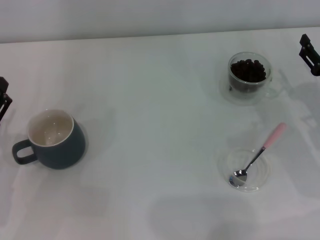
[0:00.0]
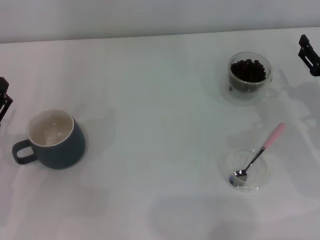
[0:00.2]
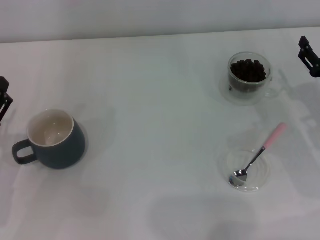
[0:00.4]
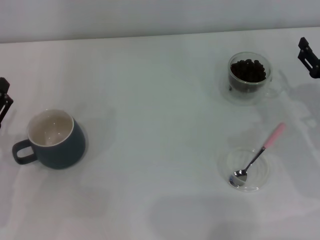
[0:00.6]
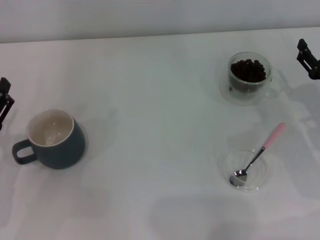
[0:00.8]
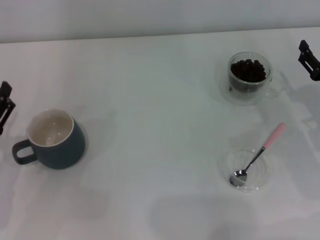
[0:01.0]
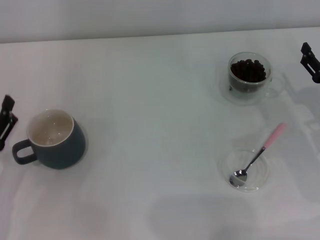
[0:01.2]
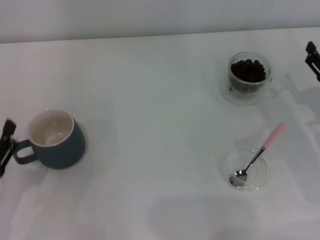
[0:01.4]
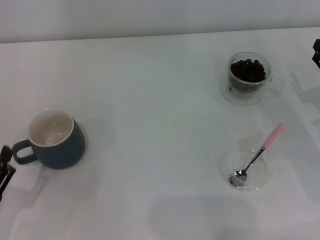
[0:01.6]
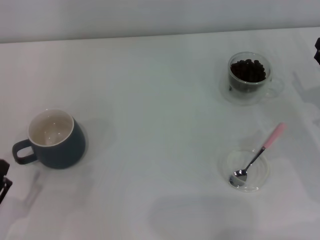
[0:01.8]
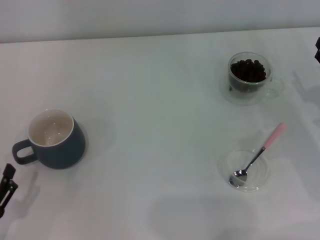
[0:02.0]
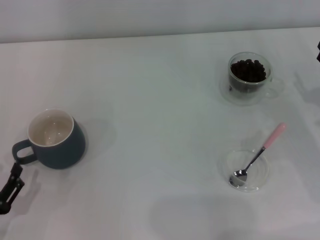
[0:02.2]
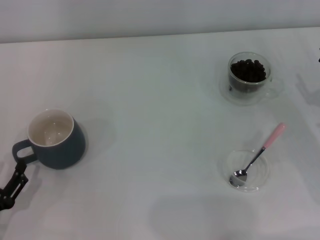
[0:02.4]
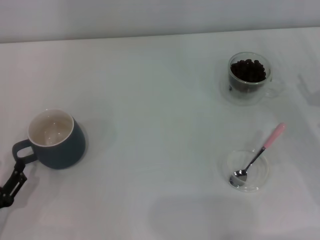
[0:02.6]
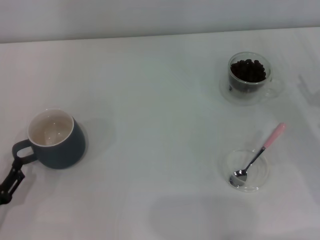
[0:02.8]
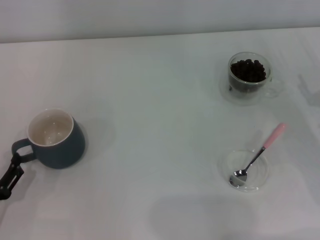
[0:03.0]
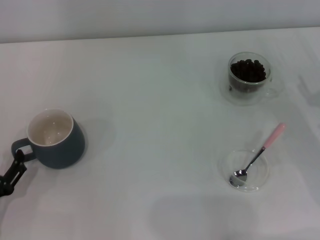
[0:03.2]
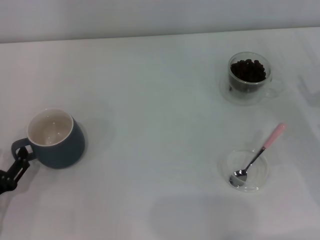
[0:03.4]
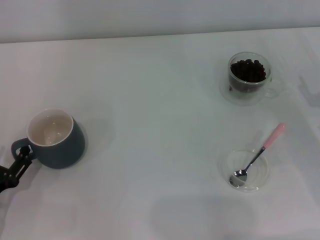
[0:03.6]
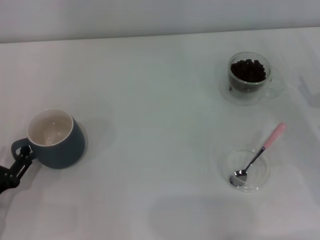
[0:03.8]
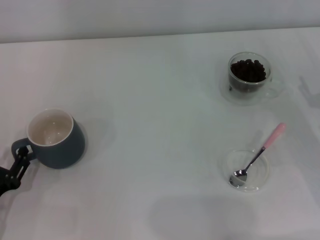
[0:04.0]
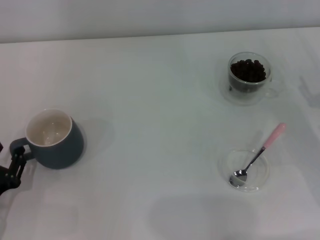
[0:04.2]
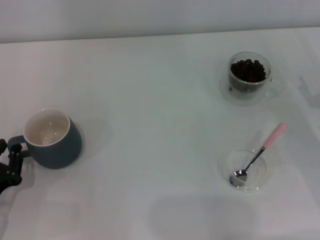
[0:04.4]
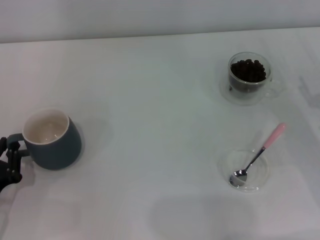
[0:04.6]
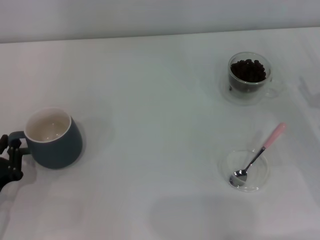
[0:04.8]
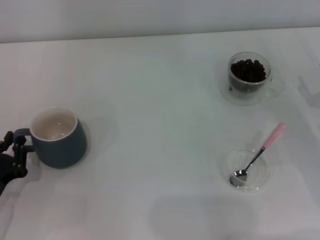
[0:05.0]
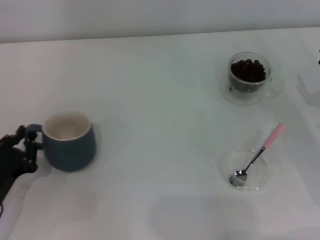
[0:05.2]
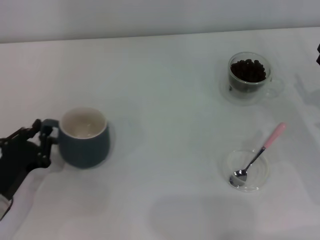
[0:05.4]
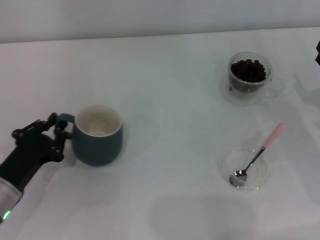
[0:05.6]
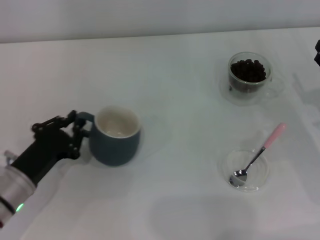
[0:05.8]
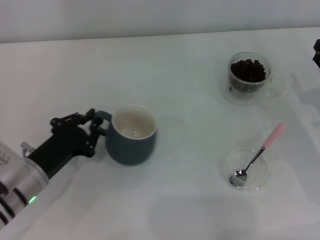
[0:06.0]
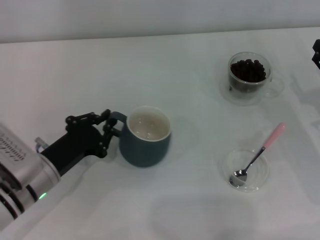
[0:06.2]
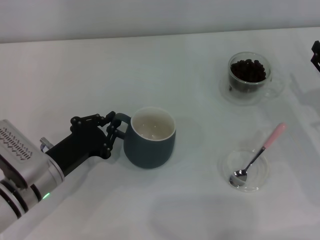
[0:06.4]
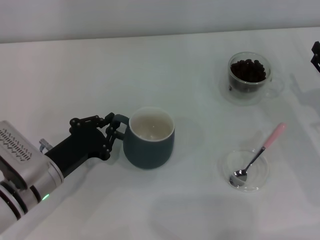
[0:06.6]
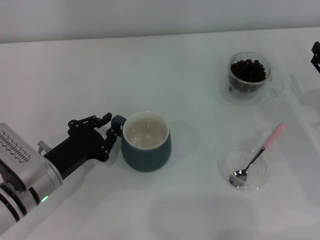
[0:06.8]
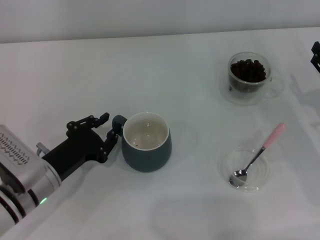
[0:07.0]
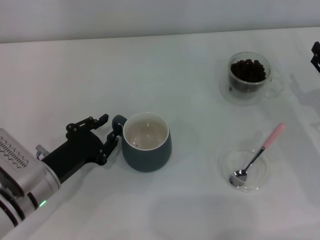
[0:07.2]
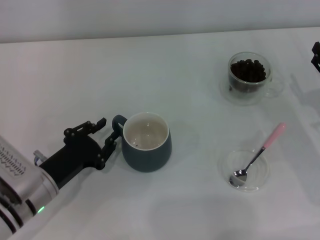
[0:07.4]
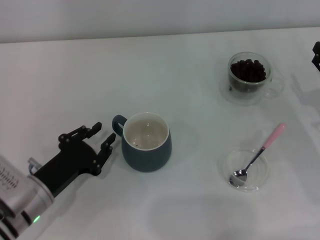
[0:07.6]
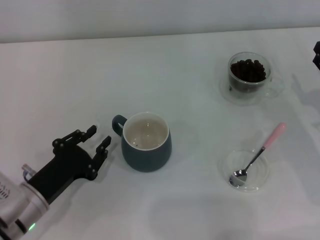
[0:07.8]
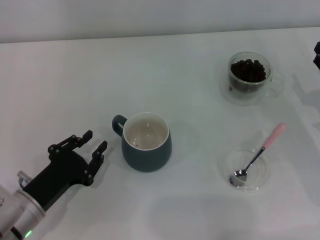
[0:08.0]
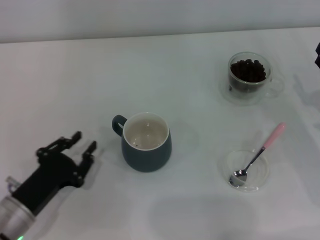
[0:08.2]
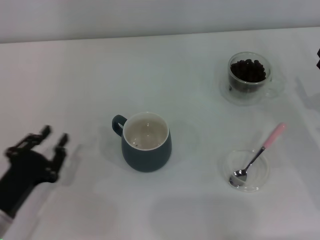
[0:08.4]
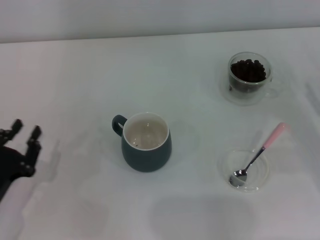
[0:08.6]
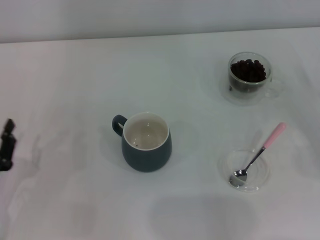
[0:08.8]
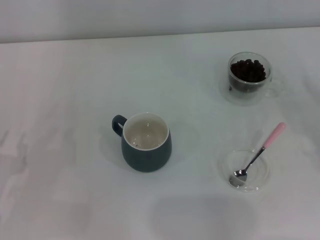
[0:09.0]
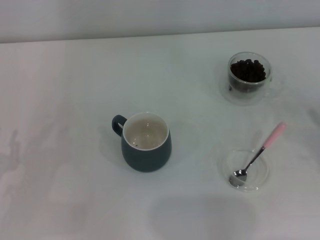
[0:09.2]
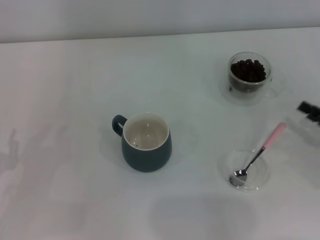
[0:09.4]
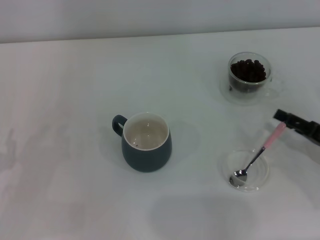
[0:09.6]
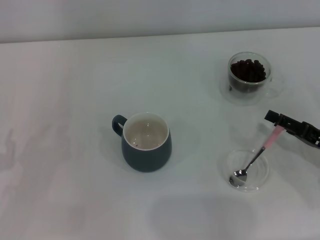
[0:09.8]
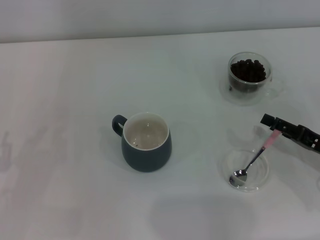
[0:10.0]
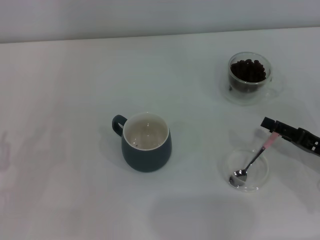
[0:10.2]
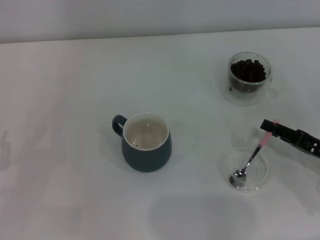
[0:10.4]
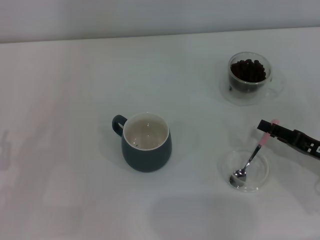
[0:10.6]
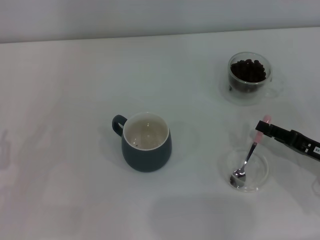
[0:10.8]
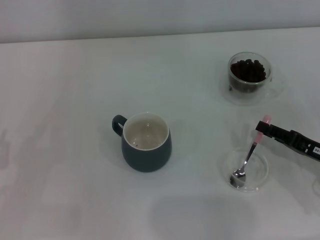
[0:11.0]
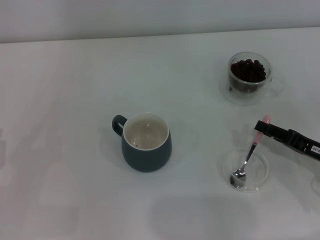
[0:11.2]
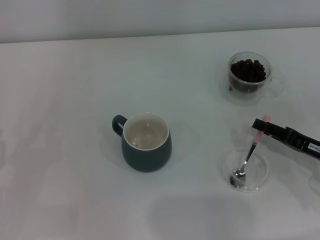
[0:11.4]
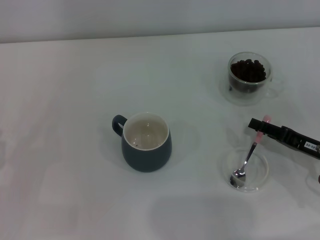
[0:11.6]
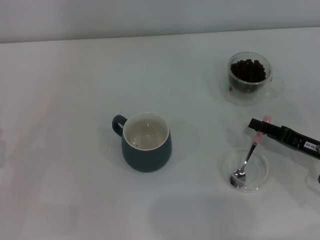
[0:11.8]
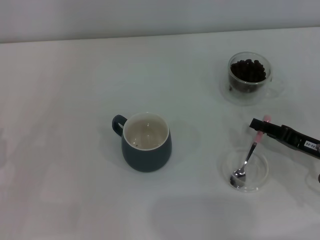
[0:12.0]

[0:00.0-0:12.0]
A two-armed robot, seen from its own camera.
Task of the whole recording: Use a pink spoon to take out the coffee beans from the glass and pour them into the gray cup.
Step, 0:00.0 to 0:07.8: Move the cup to the center of view with the left gripper.
0:00.0 to 0:01.6: The left gripper travels backward by about 10 cm.
0:01.6 to 0:03.0: The grippers make only small movements.
0:03.0 to 0:04.4: The left gripper closes up.
0:04.4 to 0:06.0: The left gripper is displaced to the right and forward by some 10 cm, and closes up.
0:06.0 to 0:07.6: There are only small adjustments of the grippers.
0:07.6 to 0:09.0: The right gripper moves to the right and backward, roughly 10 cm; the left gripper shifts approximately 10 cm to the left.
0:09.0 to 0:10.4: The right gripper moves to the left, some 5 cm.
0:10.4 to 0:12.0: The right gripper closes its fingers.

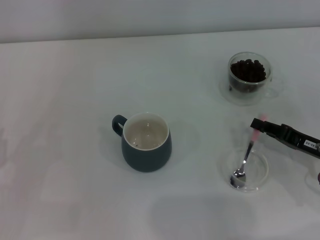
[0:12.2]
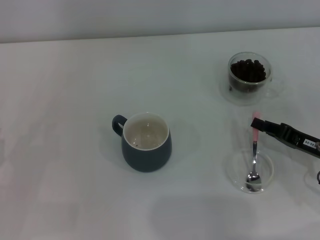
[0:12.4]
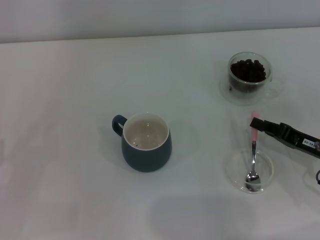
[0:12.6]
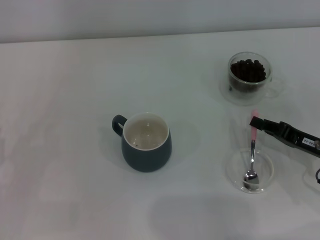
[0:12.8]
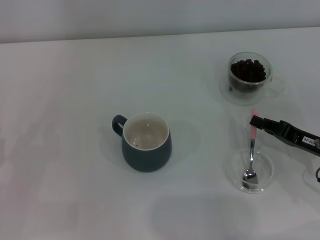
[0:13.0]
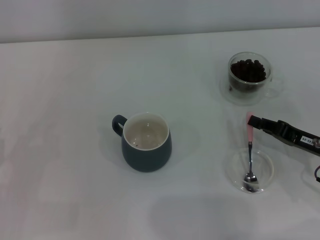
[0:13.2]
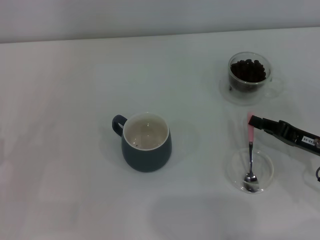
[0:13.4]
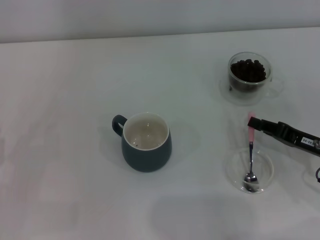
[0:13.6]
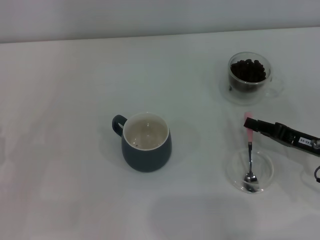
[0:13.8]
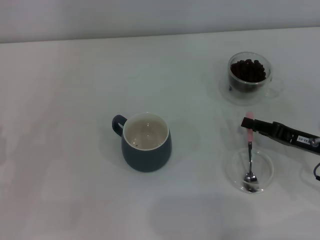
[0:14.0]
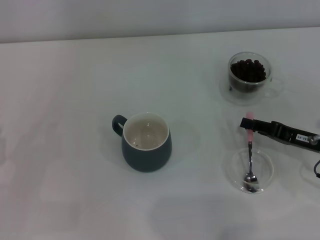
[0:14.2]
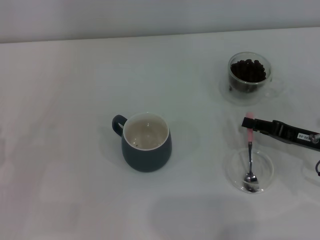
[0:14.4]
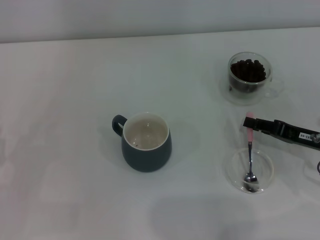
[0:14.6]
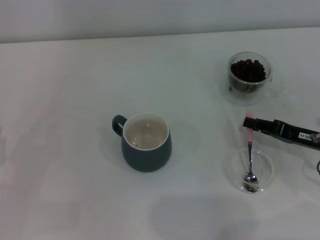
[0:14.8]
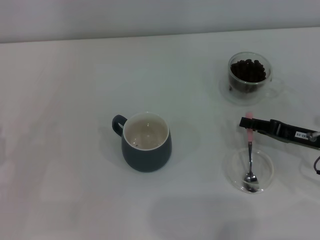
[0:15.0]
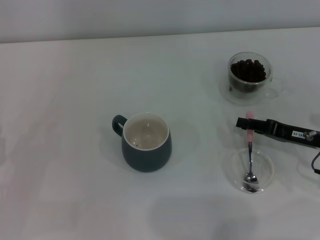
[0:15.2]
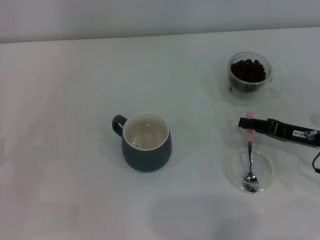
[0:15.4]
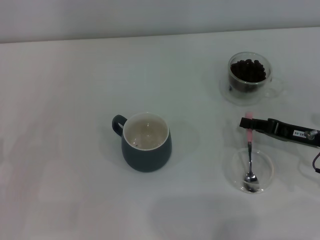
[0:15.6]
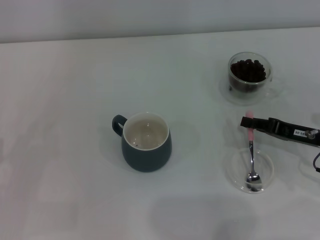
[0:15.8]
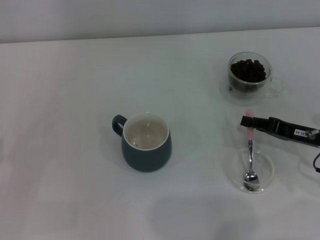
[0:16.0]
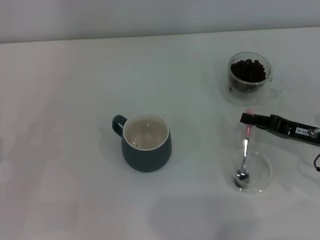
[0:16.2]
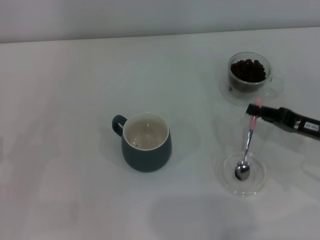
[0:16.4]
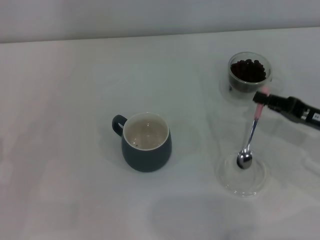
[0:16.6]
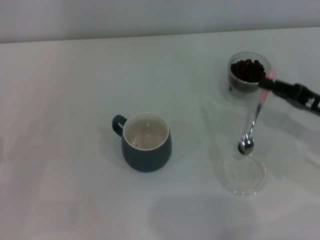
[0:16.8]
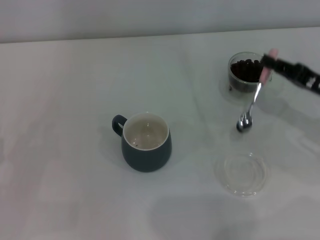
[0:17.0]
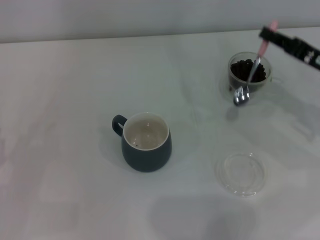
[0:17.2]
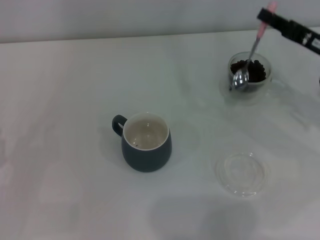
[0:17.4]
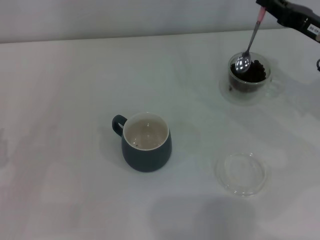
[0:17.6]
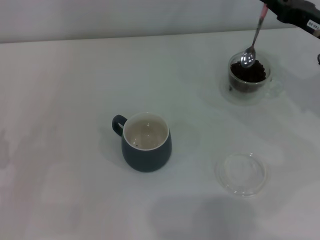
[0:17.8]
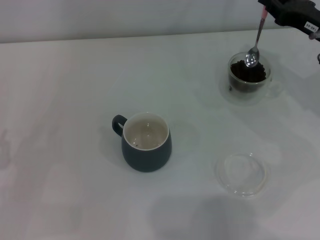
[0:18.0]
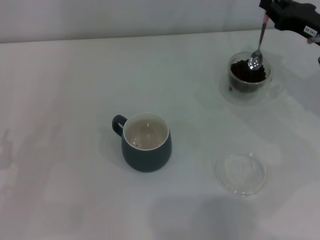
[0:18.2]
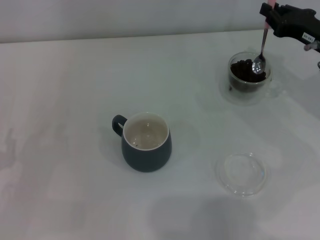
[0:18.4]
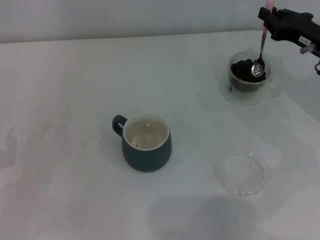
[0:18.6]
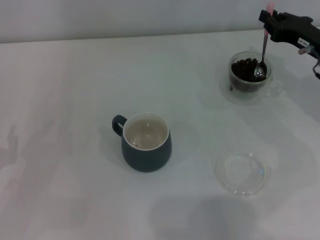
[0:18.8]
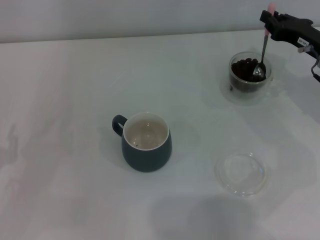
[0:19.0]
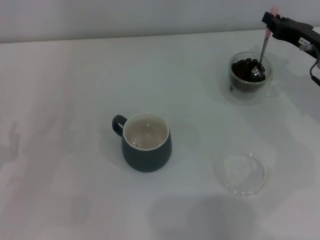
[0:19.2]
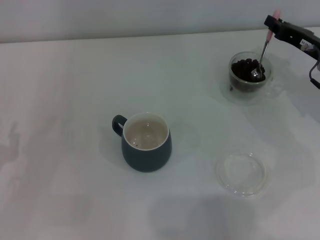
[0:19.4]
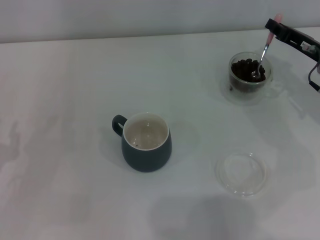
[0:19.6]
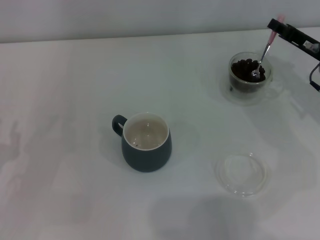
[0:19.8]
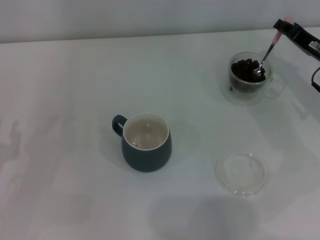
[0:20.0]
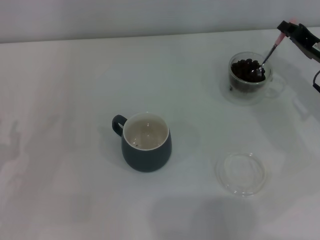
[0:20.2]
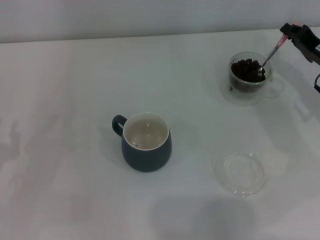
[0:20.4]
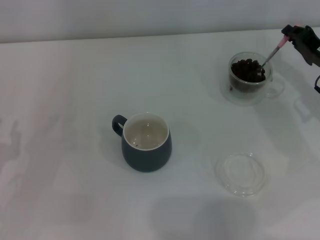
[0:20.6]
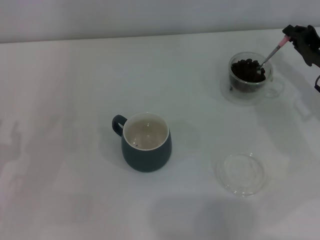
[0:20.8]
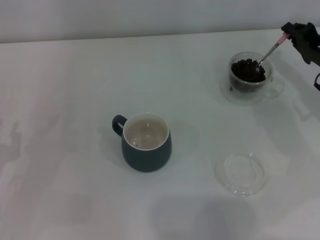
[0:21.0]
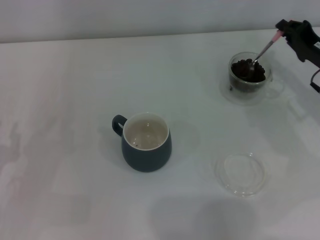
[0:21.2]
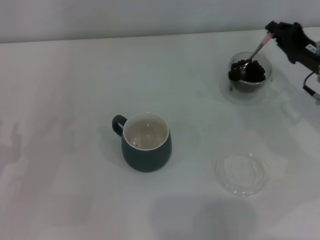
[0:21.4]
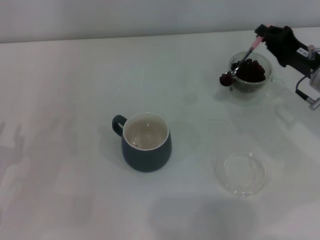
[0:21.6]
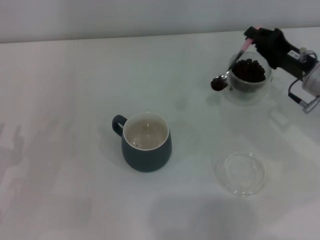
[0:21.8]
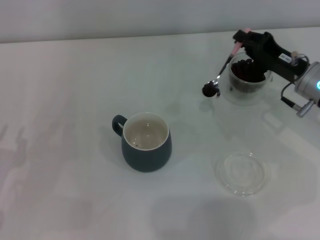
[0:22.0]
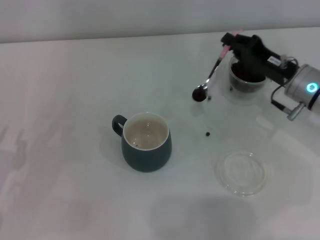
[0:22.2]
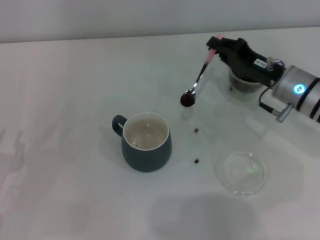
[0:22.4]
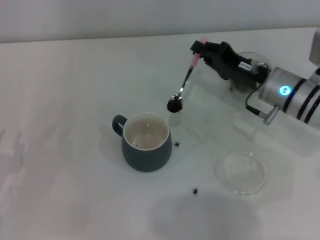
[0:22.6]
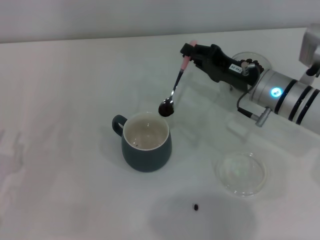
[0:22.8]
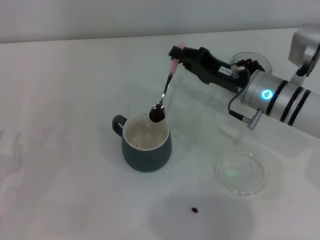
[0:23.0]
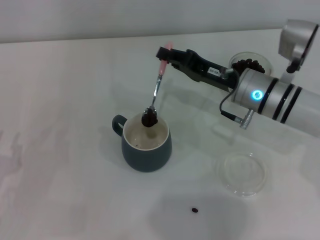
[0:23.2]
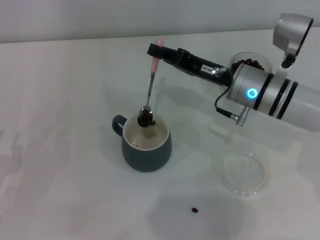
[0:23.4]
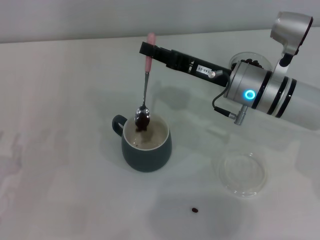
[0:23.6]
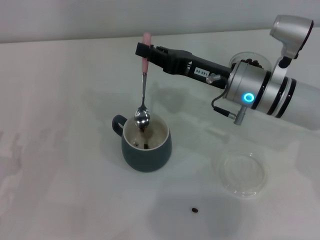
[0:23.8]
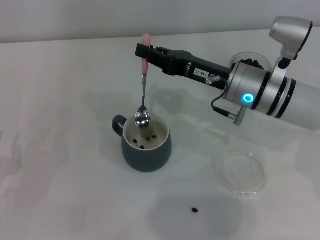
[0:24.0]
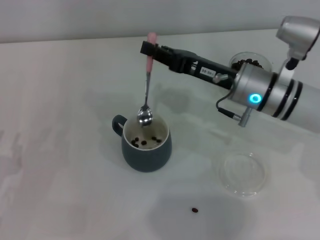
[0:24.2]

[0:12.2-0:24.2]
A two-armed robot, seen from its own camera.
Task of the whole recording: Use a pink spoon to take out the coffee beans from the glass and pour them into the gray cup.
Step, 0:12.2 to 0:16.6: Pick up the spoon with the right gripper.
0:12.2 to 0:13.8: Neither gripper changes place.
0:13.8 to 0:16.6: There are only small adjustments of the grippers.
0:16.6 to 0:18.2: The right gripper is displaced forward and upward by approximately 10 cm.
0:21.2 to 0:22.6: The right gripper heads to the left, covering roughly 10 cm.
0:22.6 to 0:24.2: The right gripper is displaced to the left by some 5 cm.
